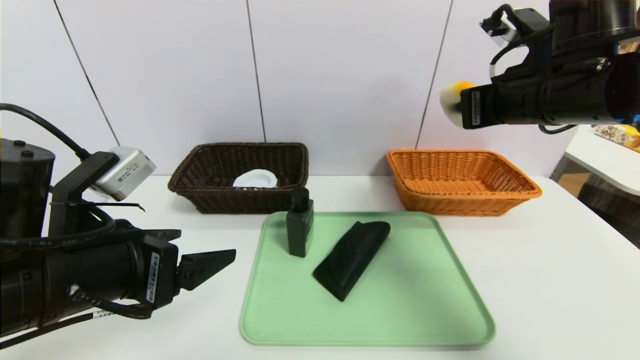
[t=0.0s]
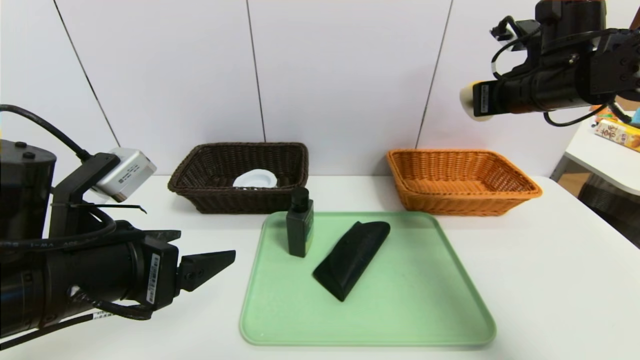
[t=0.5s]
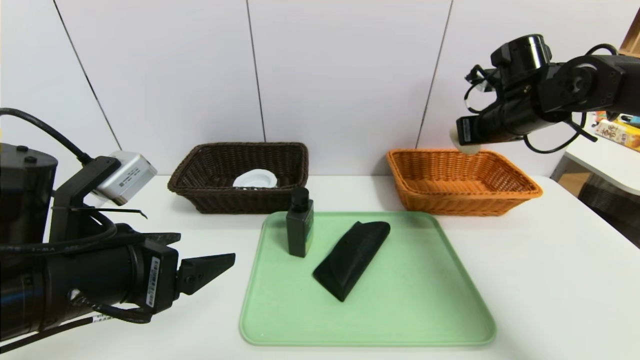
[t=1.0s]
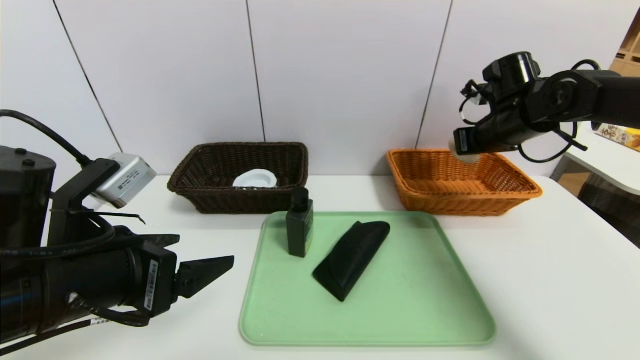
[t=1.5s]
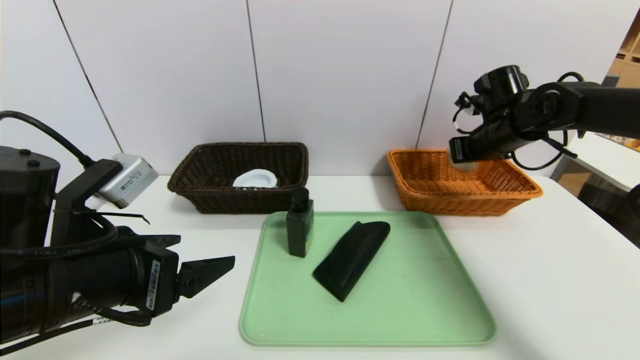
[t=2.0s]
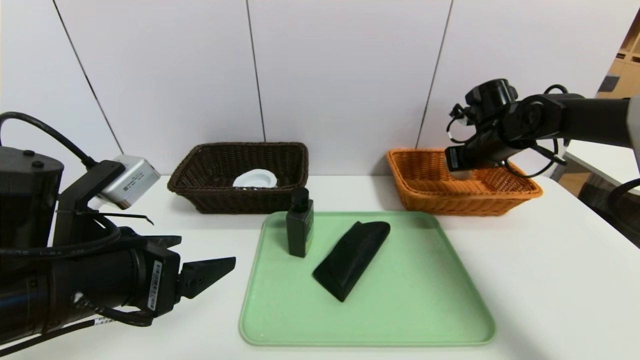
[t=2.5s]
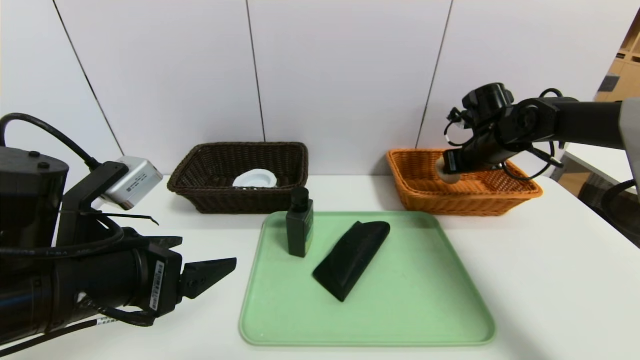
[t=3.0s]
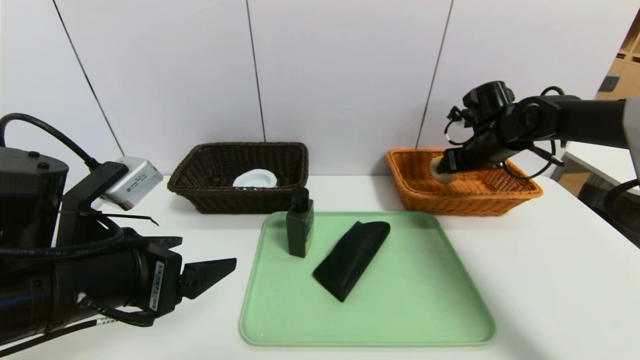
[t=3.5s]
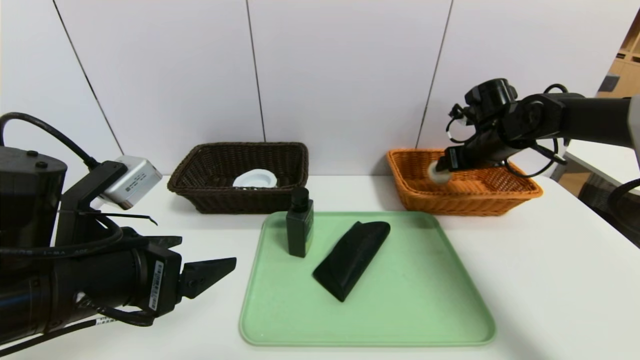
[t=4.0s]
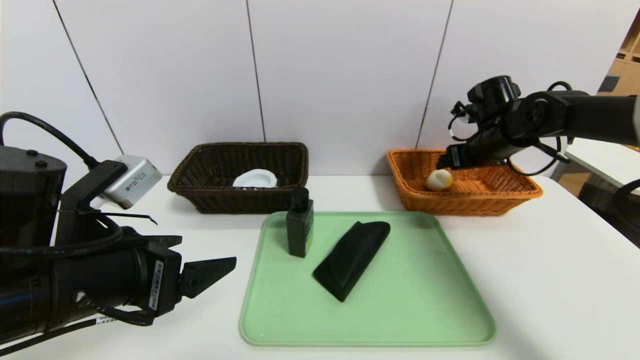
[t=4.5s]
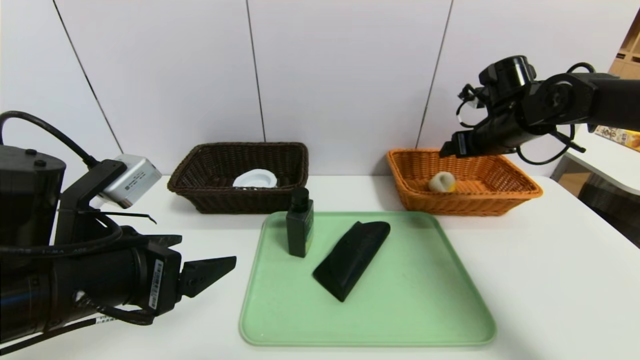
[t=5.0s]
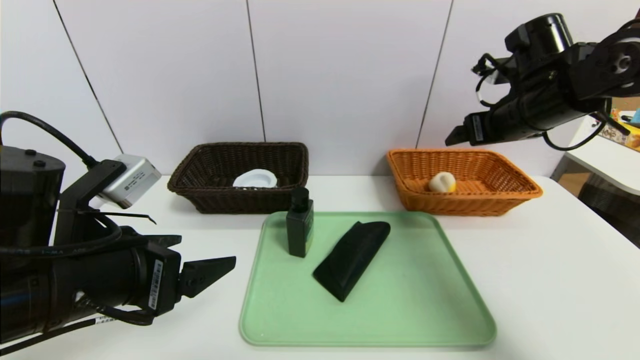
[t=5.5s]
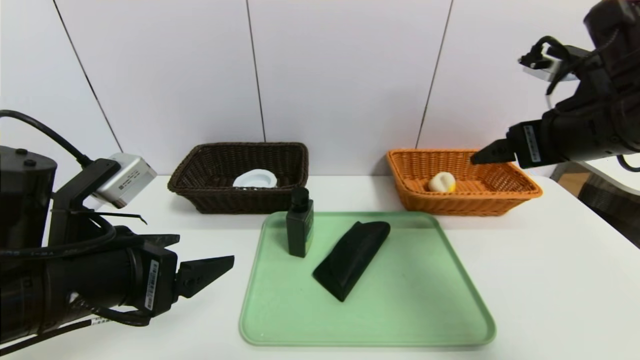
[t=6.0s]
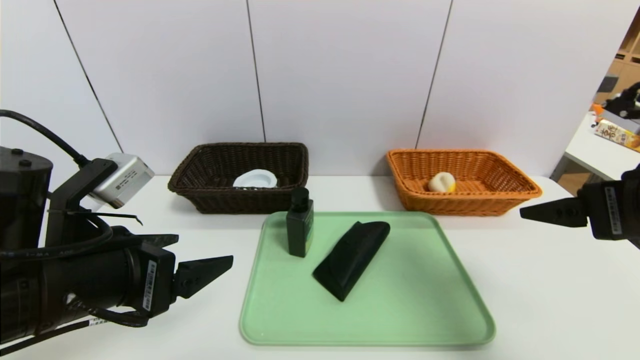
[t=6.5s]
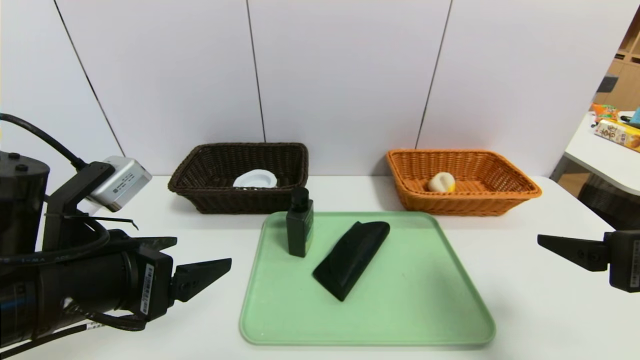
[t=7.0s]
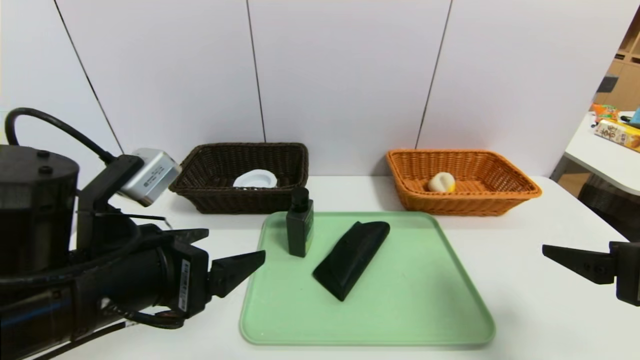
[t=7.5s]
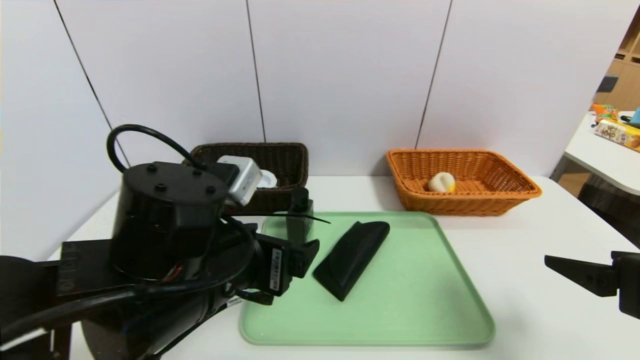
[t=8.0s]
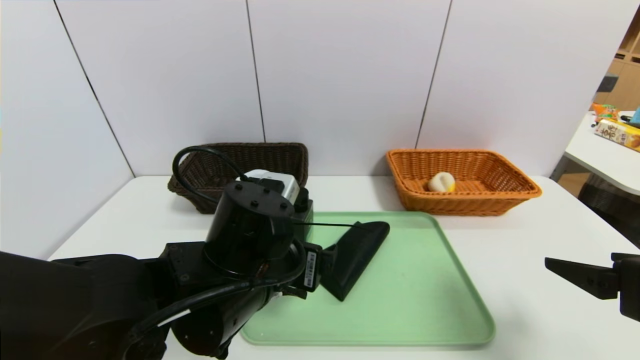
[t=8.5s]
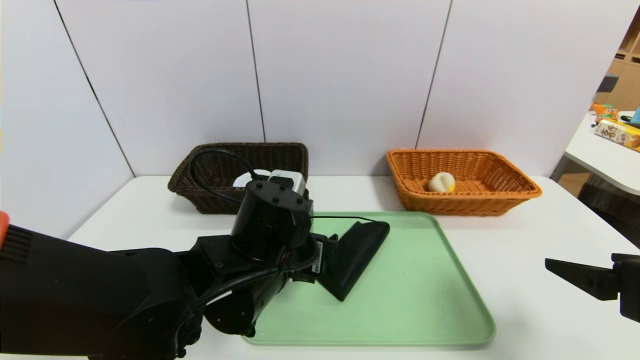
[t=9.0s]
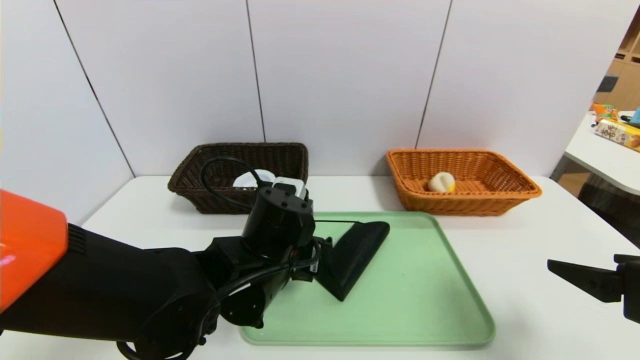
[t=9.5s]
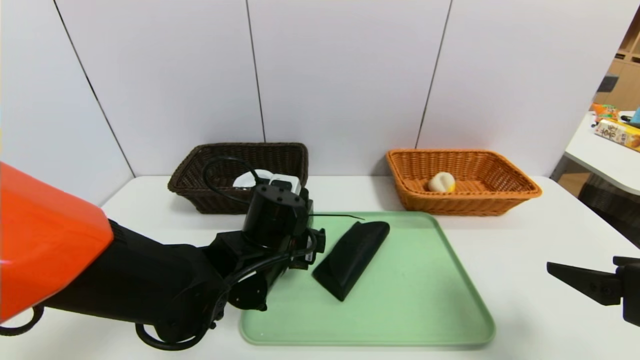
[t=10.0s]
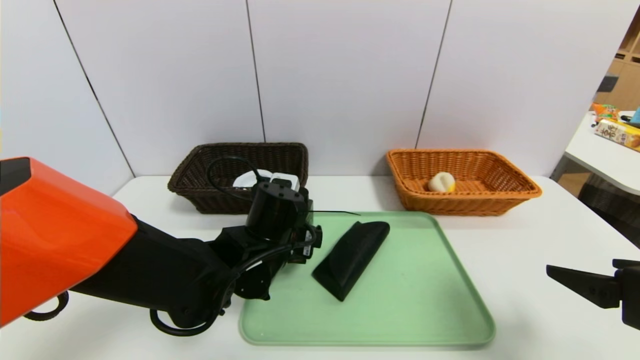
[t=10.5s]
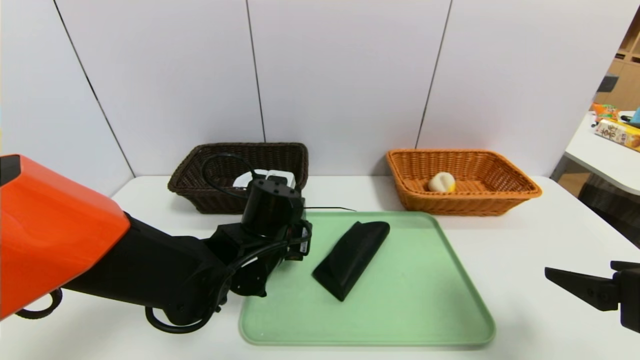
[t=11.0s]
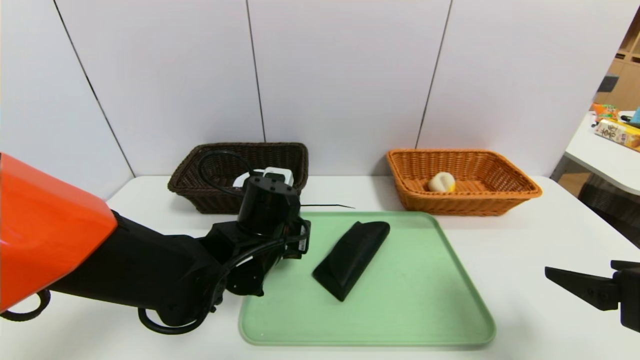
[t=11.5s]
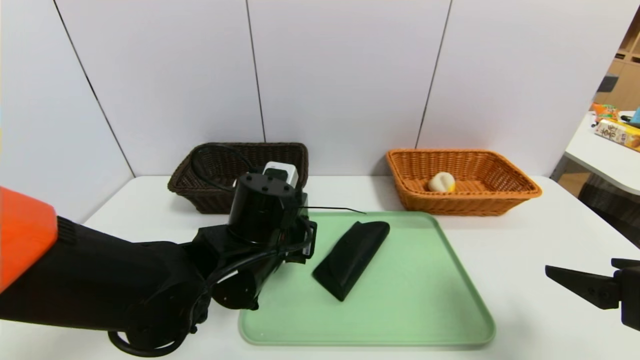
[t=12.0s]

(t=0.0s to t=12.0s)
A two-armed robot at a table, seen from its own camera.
Task of the whole recording: place the food in the right basket with the right gripper, and place the non food items in the left basket with the left gripper.
Step, t=0.0s - t=4.0s: Grasp the round bread and put it in the right basket.
t=0.0s - t=2.0s: The right gripper travels forward, downward and to the right by about 15 cm.
t=2.0s - t=4.0s: The right gripper opens.
t=4.0s - t=6.0s: The right gripper shifts some 25 cm backward and upward.
t=6.0s - t=8.0s: The right gripper shifts approximately 15 cm backward and downward. Meanwhile the left gripper moves to the right, some 10 cm.
t=8.0s - t=10.0s: The left gripper goes about 10 cm forward and downward.
t=10.0s - t=12.0s: The left gripper closes up.

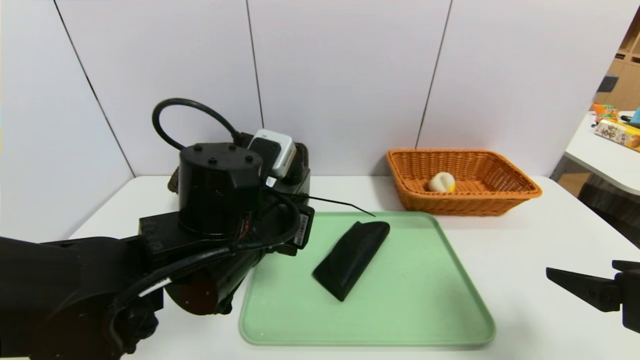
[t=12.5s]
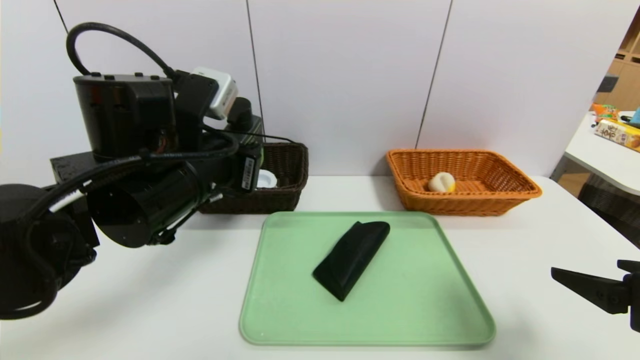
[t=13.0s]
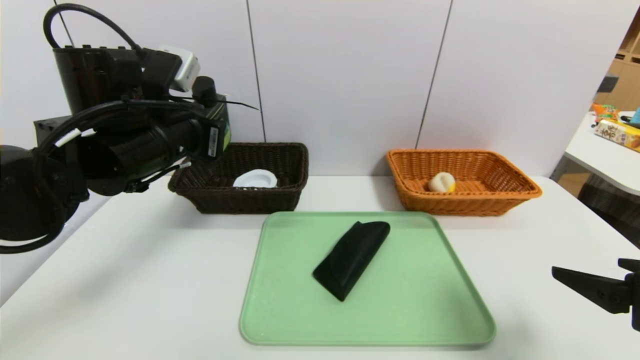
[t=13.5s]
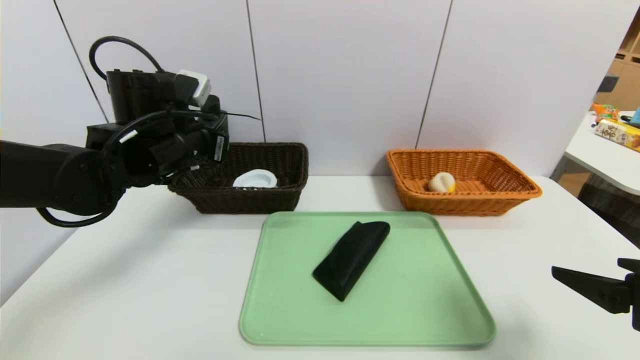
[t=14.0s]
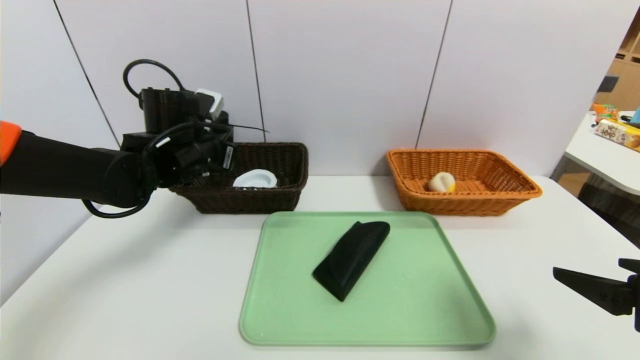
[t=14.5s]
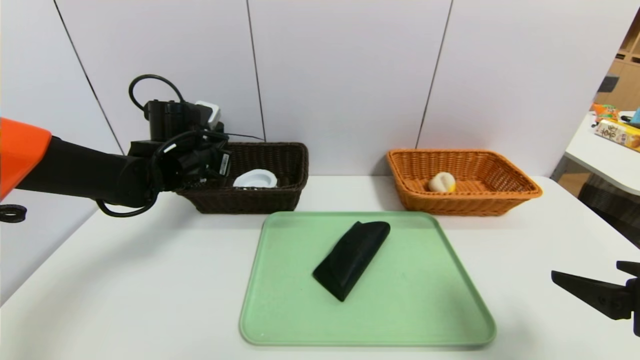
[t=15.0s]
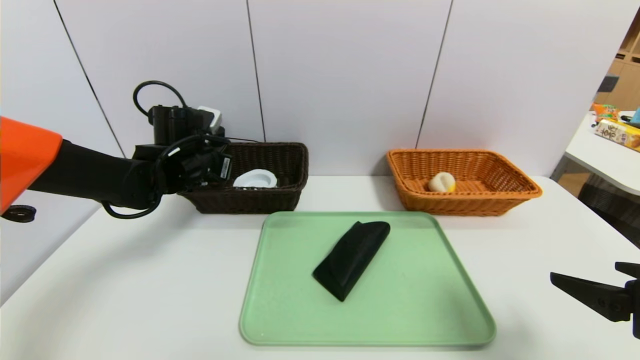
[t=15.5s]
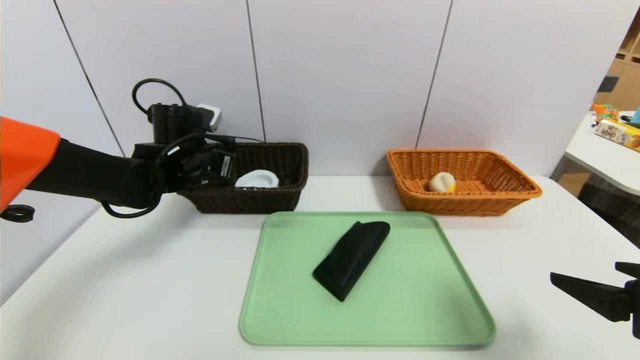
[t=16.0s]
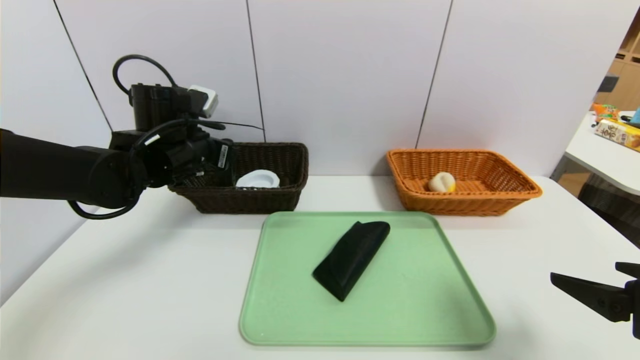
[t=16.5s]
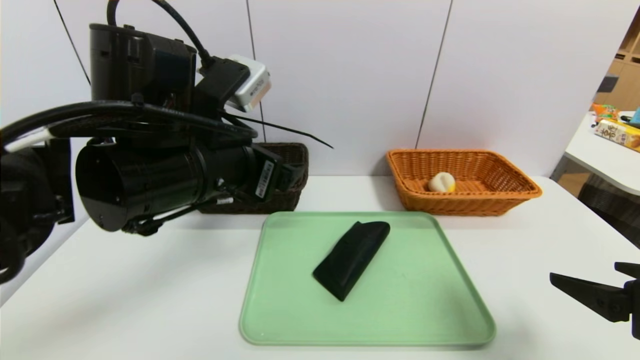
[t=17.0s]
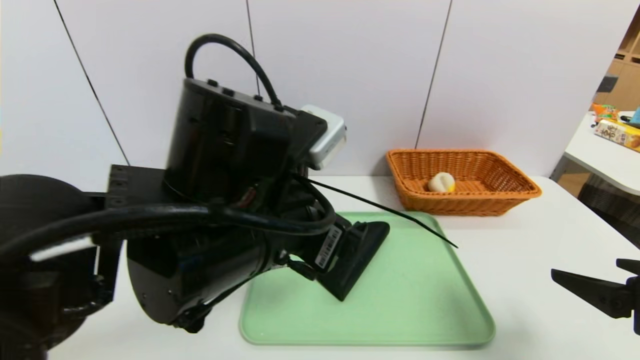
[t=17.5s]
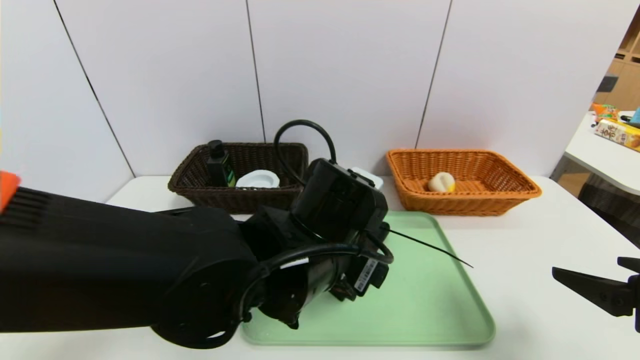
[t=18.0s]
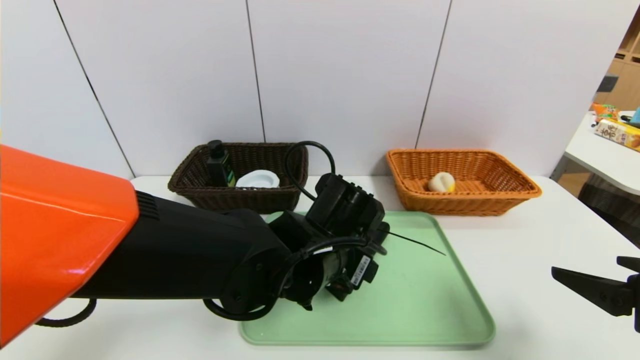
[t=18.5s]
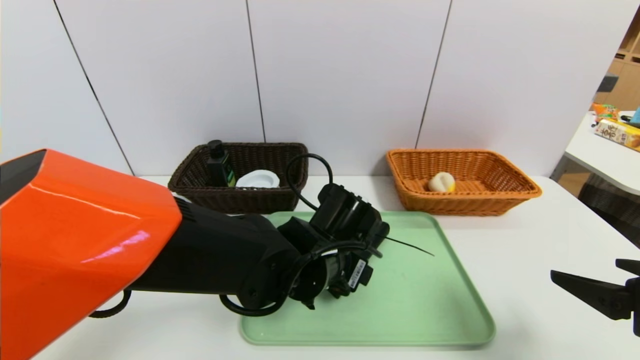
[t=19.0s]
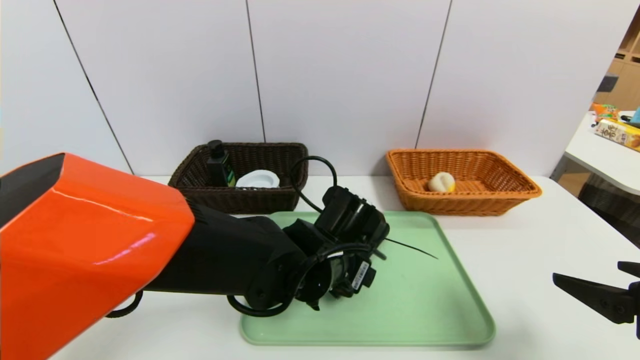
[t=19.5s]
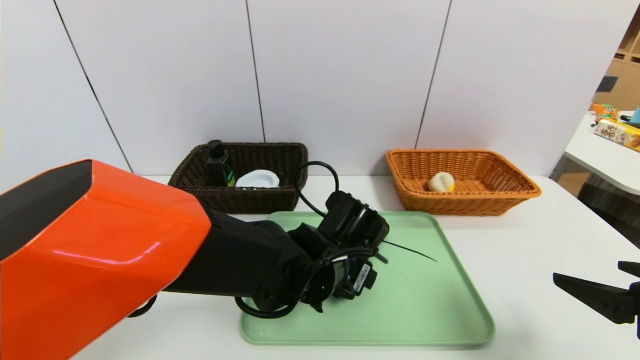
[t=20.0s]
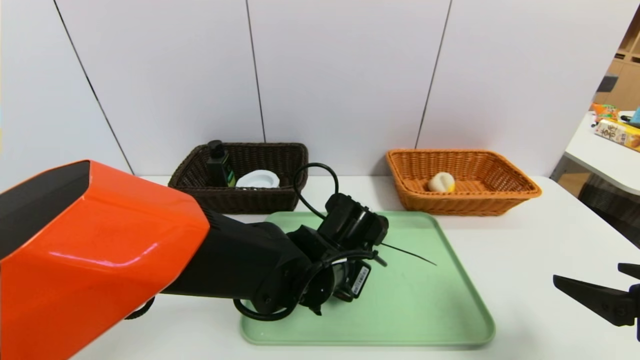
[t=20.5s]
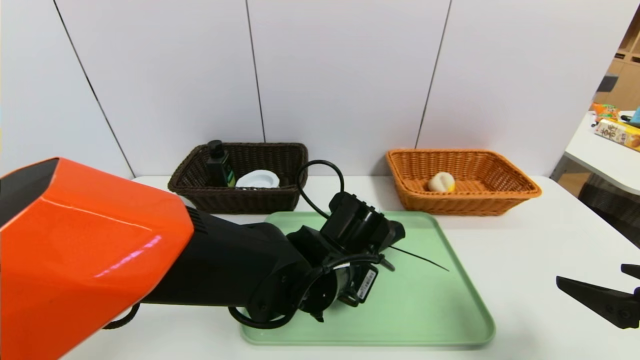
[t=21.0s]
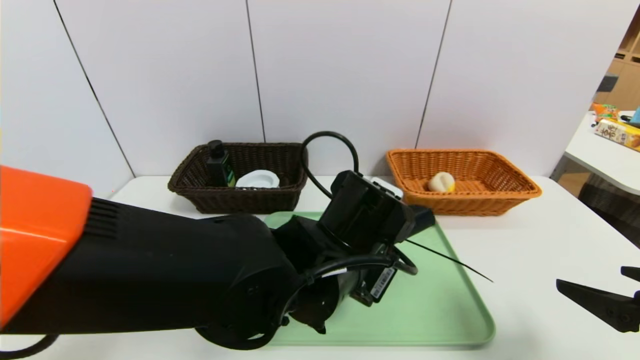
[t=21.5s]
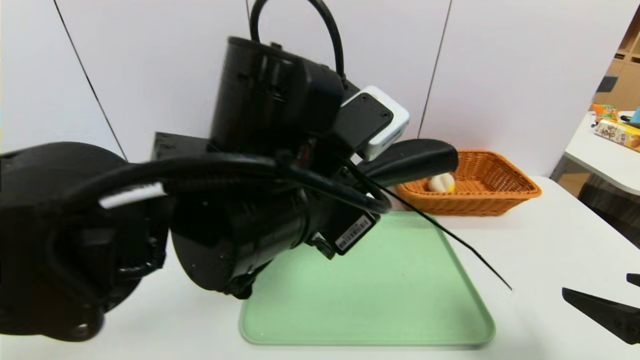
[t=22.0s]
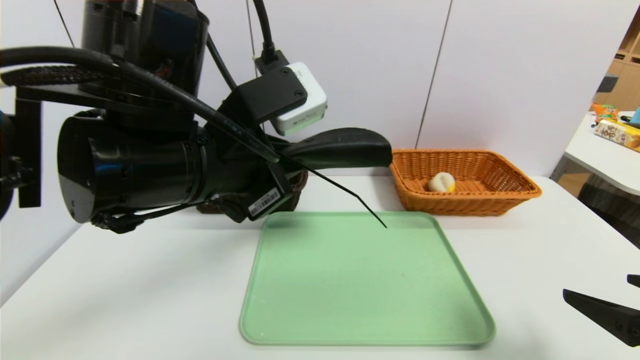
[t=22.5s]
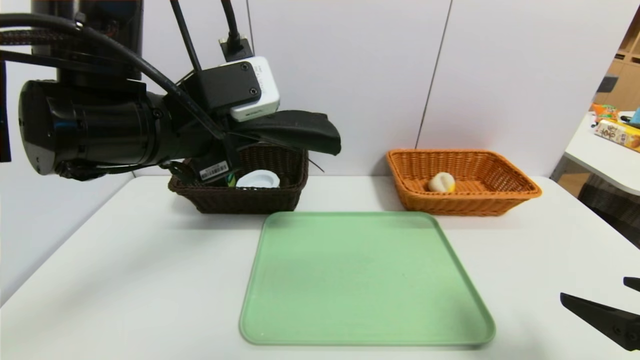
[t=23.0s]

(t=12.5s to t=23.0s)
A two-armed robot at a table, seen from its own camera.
Task of the whole recording: place the food in the right basket with the right gripper, and place the non food items in the left basket with the left gripper.
Step, t=12.5s - t=16.5s: Grasp the hard cleanser and put it in the left basket.
t=12.5s - t=14.5s: The left gripper moves forward and to the left, roughly 20 cm.
t=14.5s - t=16.5s: The left gripper opens.
t=16.5s - t=19.0s: The left gripper is displaced to the right, backward and downward by roughly 25 cm.
t=19.0s - t=21.0s: The left gripper closes its fingers.
t=21.0s - t=23.0s: The left gripper shifts about 25 cm upward and to the left.
